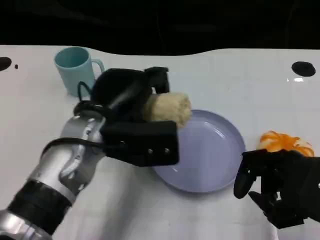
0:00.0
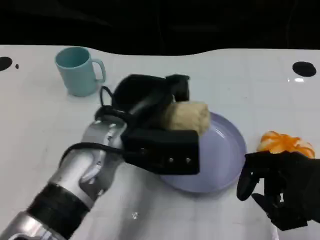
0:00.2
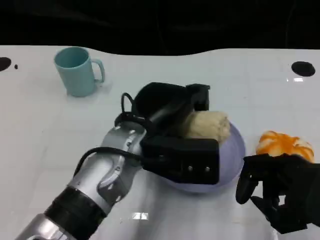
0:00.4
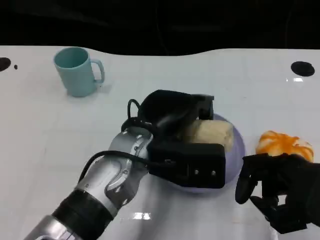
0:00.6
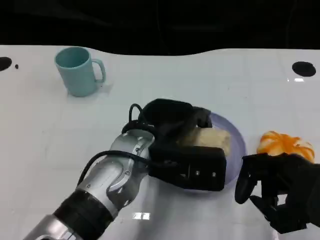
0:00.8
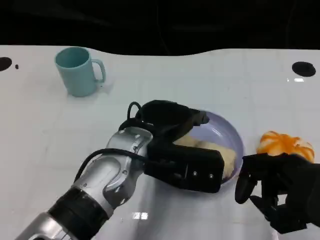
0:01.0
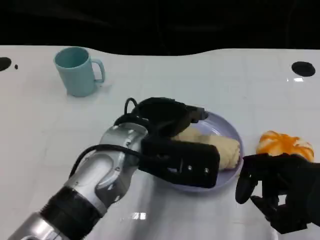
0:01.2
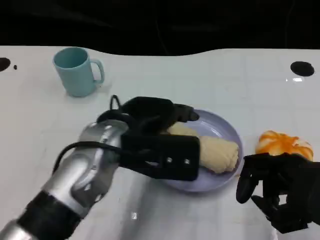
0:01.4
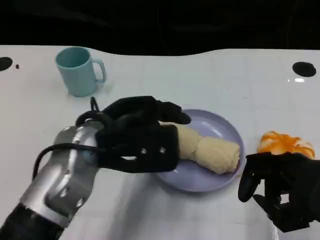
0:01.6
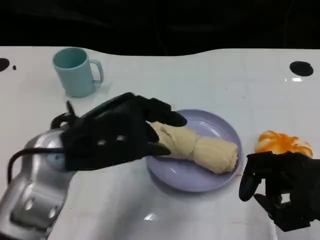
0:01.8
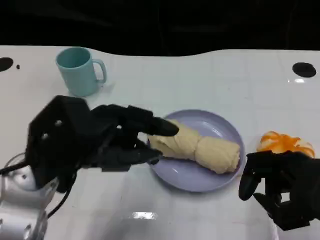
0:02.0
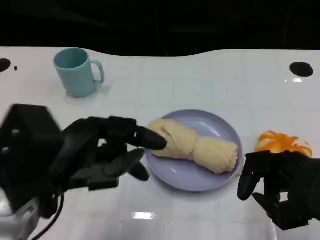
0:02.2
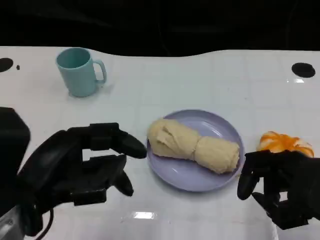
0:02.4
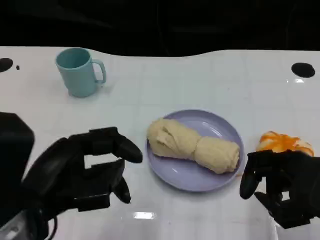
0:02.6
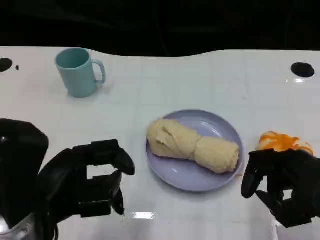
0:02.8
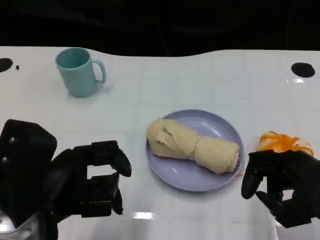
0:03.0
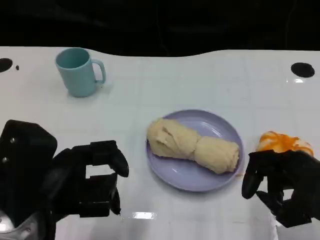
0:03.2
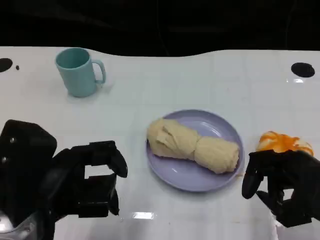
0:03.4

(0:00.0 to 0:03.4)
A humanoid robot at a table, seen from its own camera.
Task of the whole recording: Grasp the towel on the left side of the plate with the left hand and place it into the plate.
0:00.0 - 0:01.6: The left hand moves approximately 5 cm to the right and comes back.
0:01.6 - 0:03.4: The left hand moves backward and to the left, roughly 10 cm.

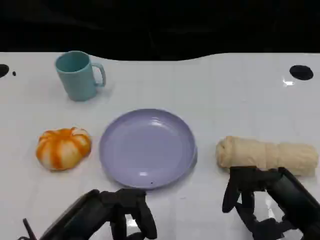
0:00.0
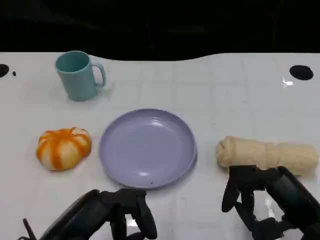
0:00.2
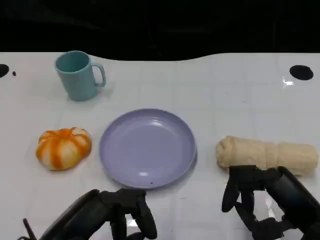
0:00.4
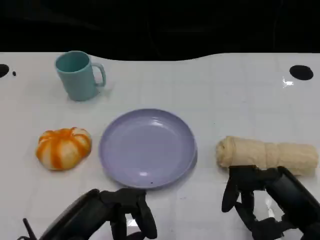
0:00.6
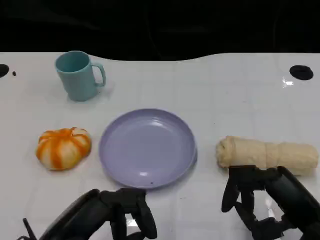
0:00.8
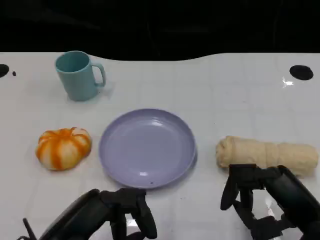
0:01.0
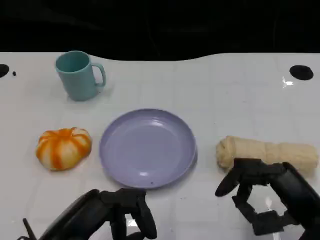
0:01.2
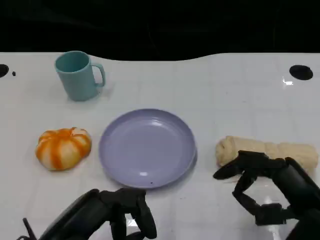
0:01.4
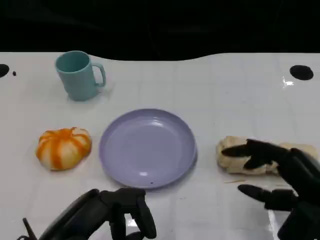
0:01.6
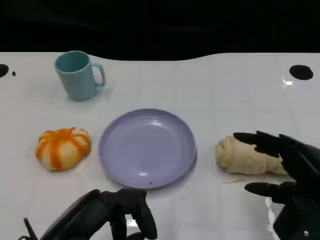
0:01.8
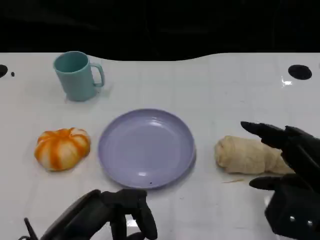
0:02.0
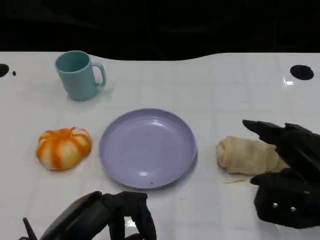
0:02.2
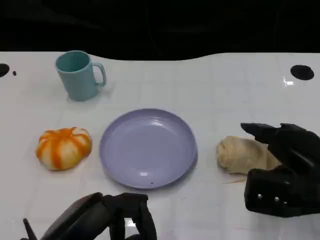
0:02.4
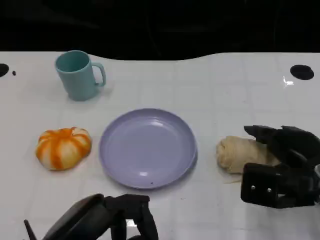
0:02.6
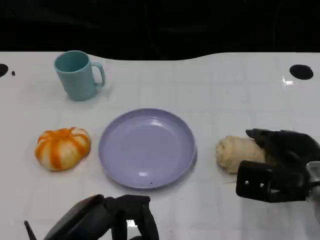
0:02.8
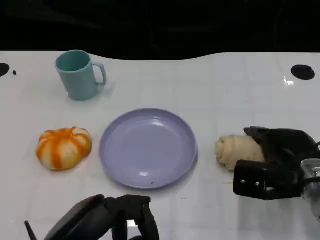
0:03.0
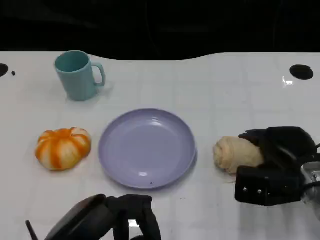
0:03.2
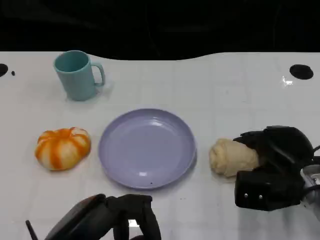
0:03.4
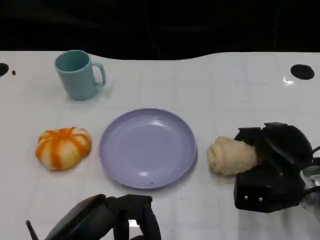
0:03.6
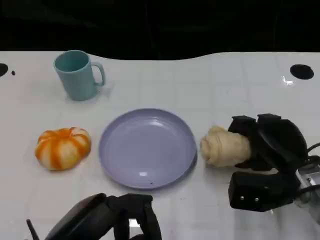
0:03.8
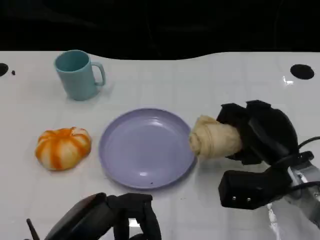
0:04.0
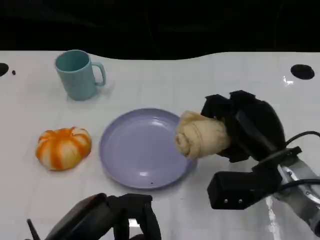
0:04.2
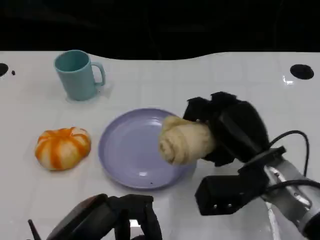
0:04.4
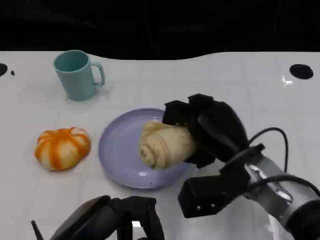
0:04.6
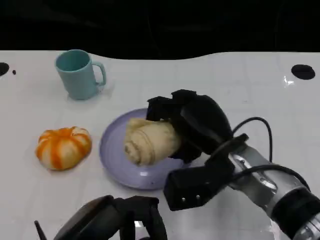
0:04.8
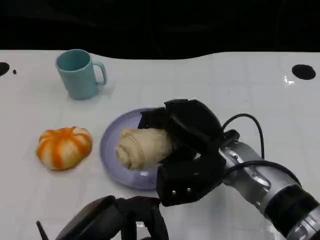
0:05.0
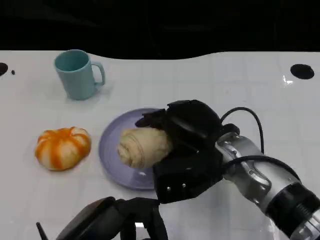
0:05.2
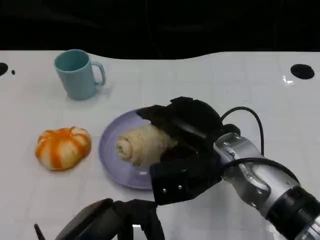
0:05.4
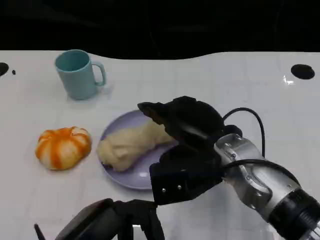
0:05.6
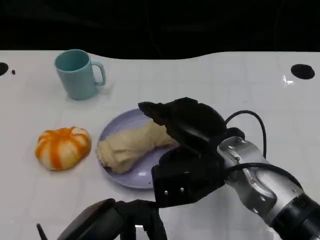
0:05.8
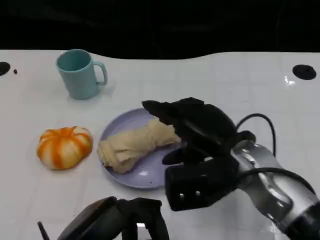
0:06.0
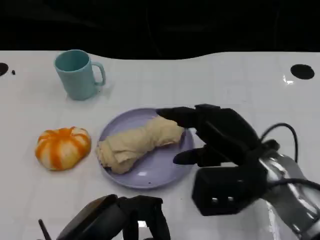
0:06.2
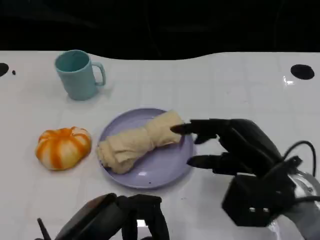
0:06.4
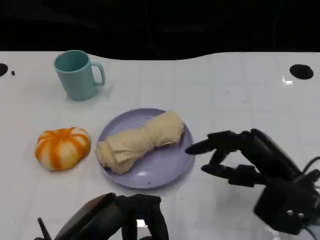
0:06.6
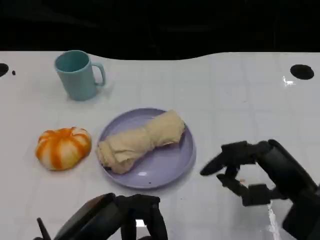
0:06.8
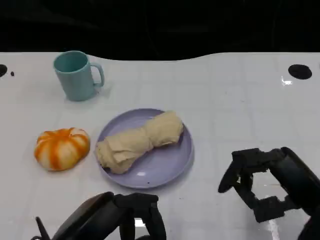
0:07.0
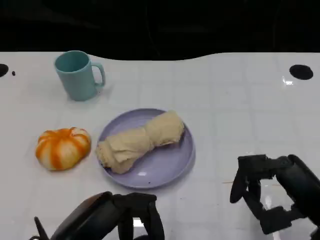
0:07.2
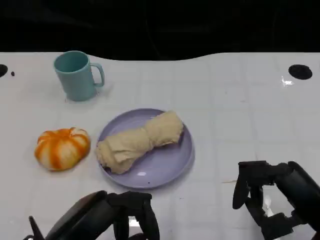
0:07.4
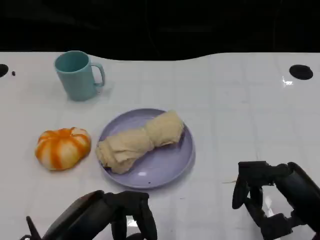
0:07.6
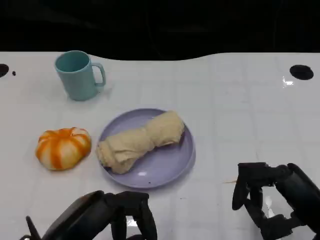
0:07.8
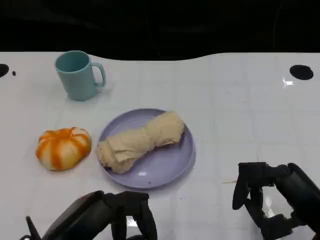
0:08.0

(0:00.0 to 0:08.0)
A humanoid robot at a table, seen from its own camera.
Task of the whole recording: Grasp the towel on the left side of the plate with the left hand and place it into the plate.
0:00.0 - 0:01.6: The hands move only a little.
0:01.6 - 0:03.2: The right hand moves forward and downward, about 10 cm.
0:03.2 - 0:04.8: The right hand shifts roughly 15 cm to the left and upward.
0:04.8 - 0:06.4: The right hand shifts some 10 cm to the right.
0:06.4 - 0:08.0: The right hand travels backward and to the right by approximately 10 cm.
